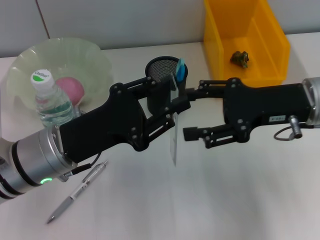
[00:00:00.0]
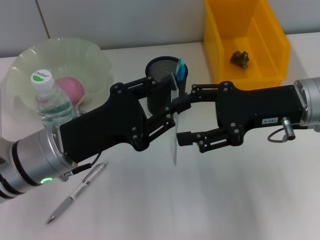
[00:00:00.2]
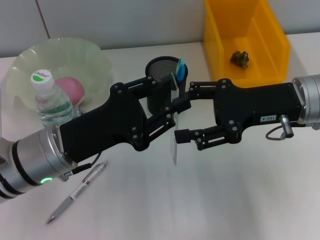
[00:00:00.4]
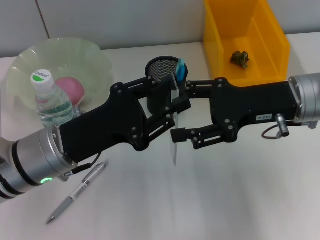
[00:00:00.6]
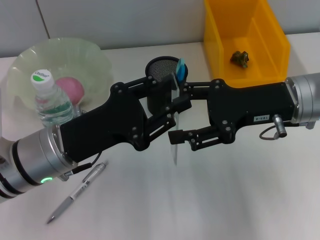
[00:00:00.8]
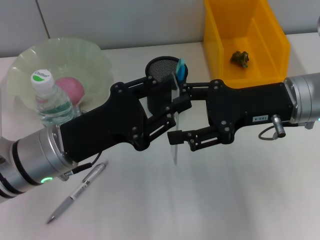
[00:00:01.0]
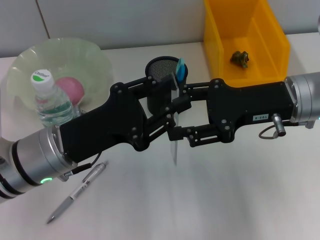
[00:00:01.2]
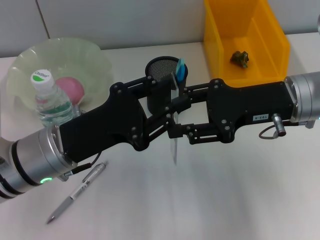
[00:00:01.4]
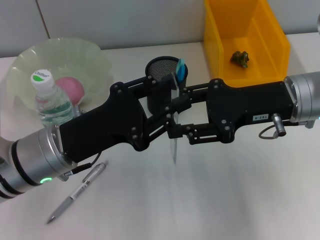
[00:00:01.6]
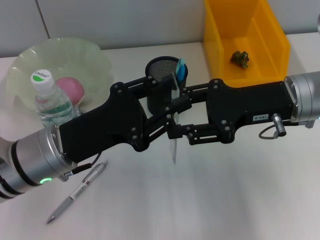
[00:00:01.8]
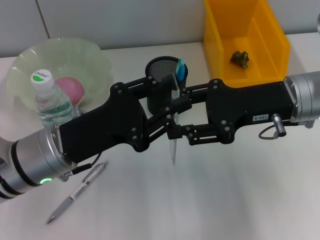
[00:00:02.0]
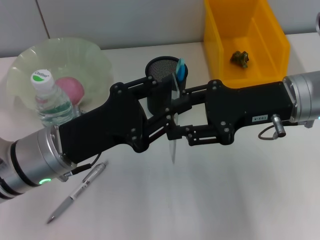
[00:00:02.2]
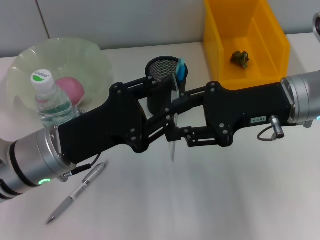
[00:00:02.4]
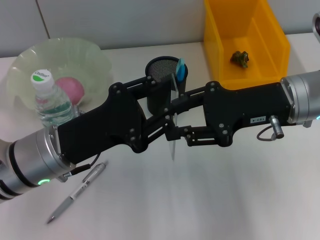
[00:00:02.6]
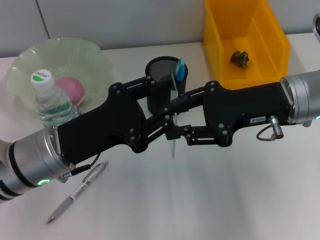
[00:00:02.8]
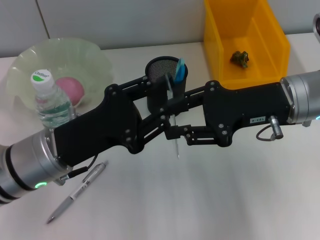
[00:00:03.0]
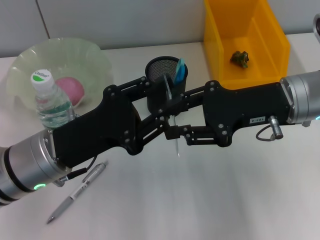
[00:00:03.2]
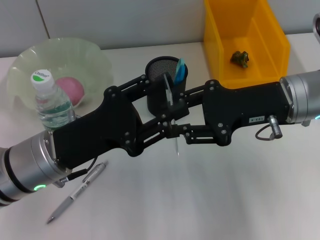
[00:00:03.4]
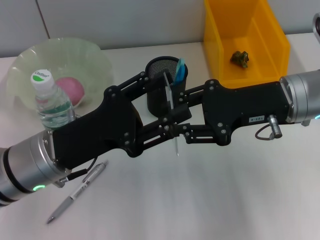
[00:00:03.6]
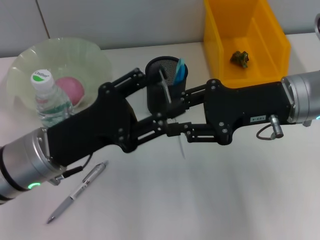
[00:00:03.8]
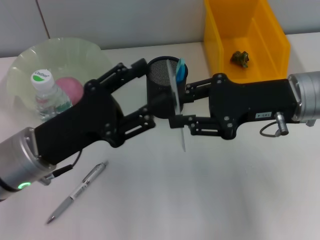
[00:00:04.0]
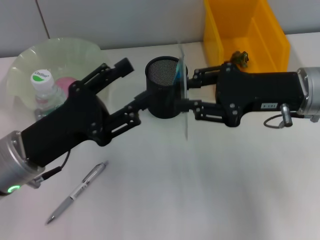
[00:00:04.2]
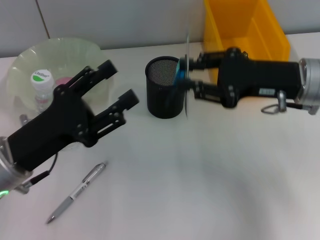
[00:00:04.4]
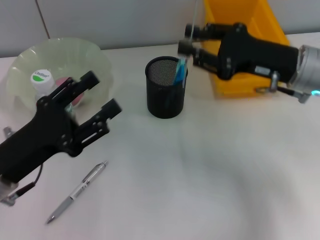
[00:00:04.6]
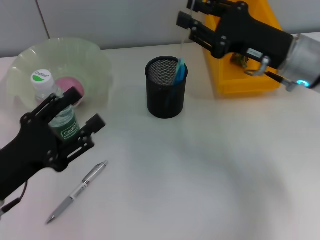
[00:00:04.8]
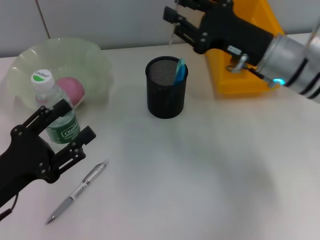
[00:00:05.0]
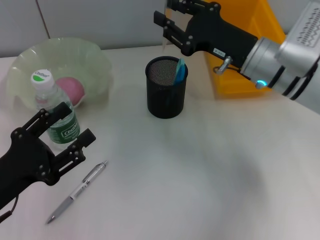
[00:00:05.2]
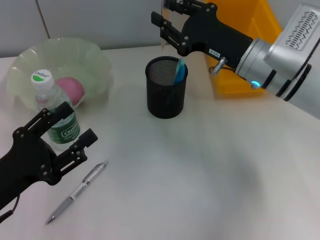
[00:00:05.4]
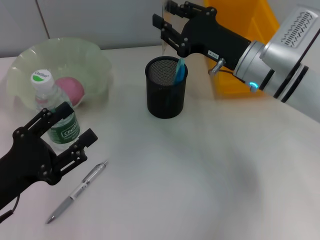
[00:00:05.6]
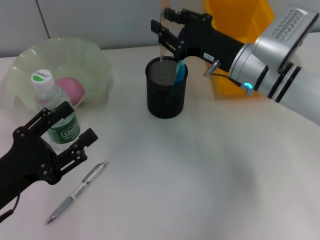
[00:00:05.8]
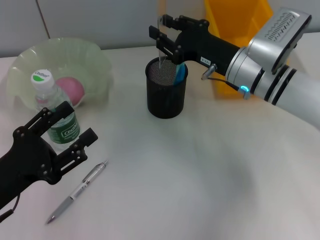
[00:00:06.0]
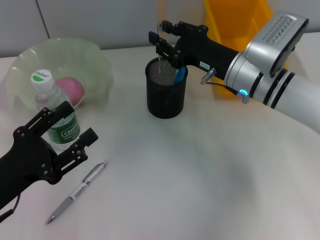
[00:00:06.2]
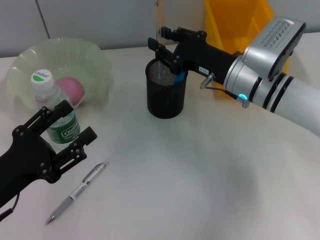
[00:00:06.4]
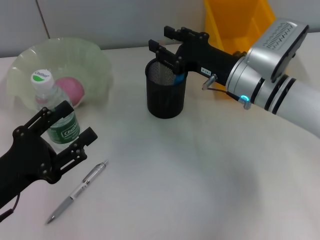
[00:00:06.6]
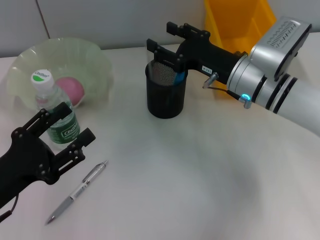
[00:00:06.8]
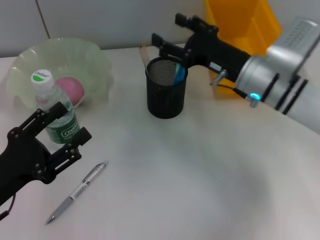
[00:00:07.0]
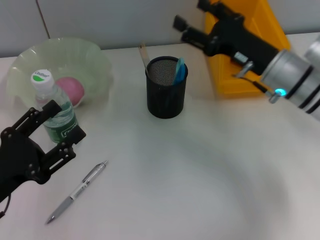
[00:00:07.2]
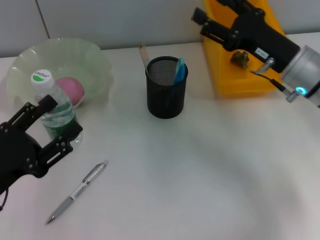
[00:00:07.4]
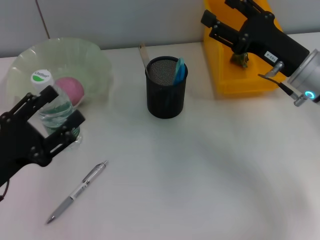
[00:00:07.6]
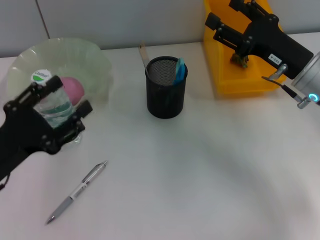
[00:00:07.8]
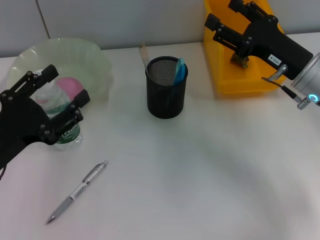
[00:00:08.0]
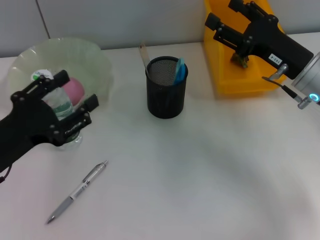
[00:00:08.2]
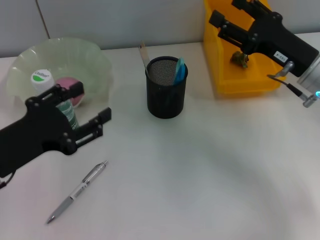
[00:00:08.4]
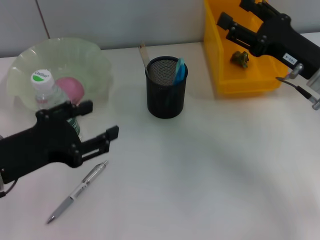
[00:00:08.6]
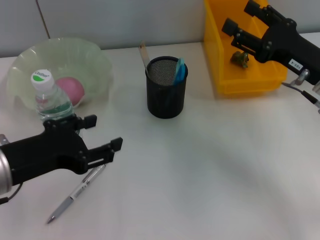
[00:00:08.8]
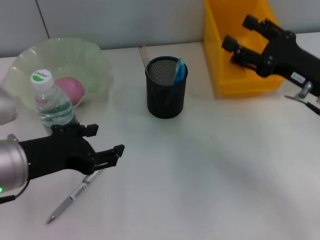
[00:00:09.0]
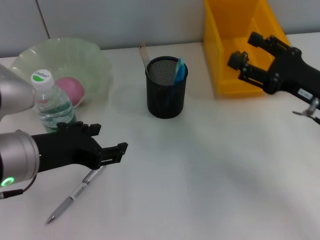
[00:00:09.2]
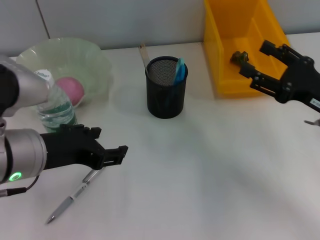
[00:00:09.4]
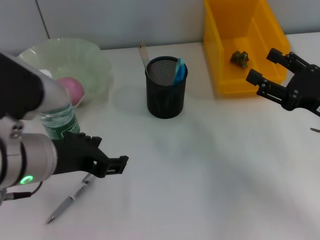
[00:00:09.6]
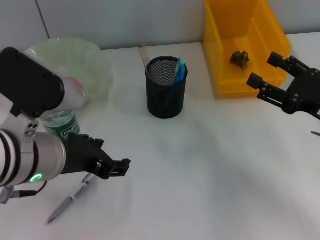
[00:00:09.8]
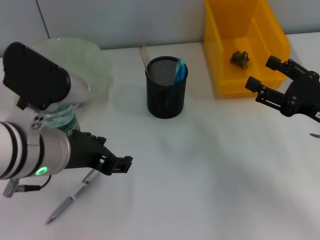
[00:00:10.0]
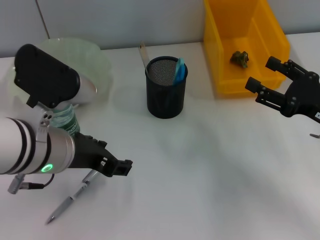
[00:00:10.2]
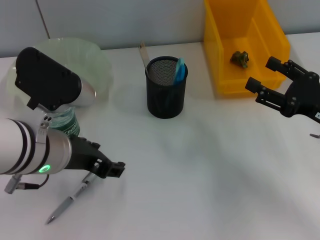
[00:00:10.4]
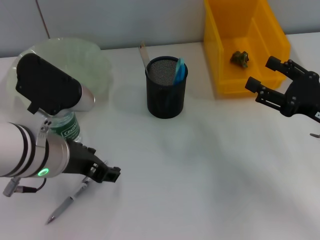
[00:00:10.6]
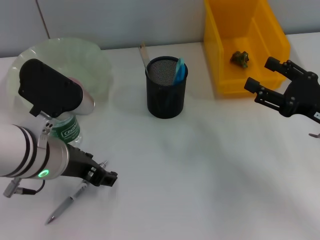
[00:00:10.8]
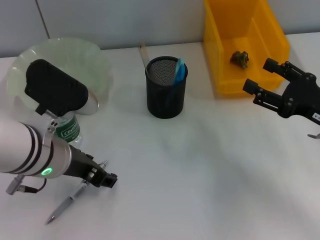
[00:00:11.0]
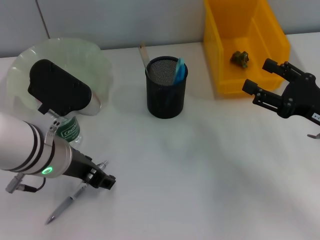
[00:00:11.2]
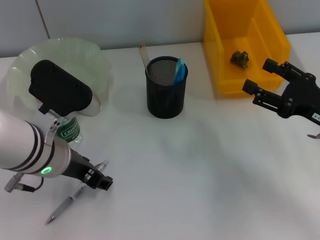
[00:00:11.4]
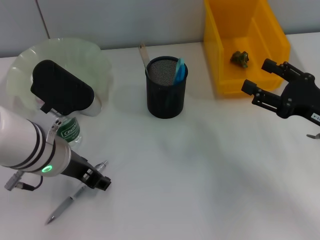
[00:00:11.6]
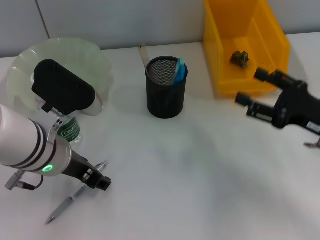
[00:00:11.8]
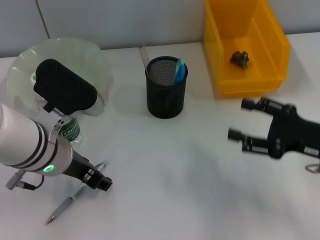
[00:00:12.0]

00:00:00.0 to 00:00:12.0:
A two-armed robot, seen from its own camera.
Step, 00:00:00.0 to 00:00:03.8: Pass the ruler from the left hand to the right hand.
Step, 00:00:04.0 to 00:00:06.8: Place the ruler into the pen holder with the right hand.
00:00:00.0 to 00:00:01.6: There are only small adjustments of the grippers.
00:00:01.6 to 00:00:03.0: Neither gripper changes place.
00:00:03.0 to 00:00:04.4: The left gripper opens its fingers.
00:00:04.4 to 00:00:06.0: The right gripper shifts about 10 cm to the left, forward and downward; the left gripper moves roughly 5 cm.
00:00:06.0 to 00:00:07.6: The right gripper heads to the right, covering some 10 cm, and opens up.
00:00:07.6 to 00:00:09.0: The left gripper goes some 10 cm upward and to the right.
00:00:09.0 to 00:00:10.4: The left gripper heads to the right, covering about 5 cm, while the right gripper shifts by some 5 cm.
00:00:10.4 to 00:00:12.0: The grippers move only a little.

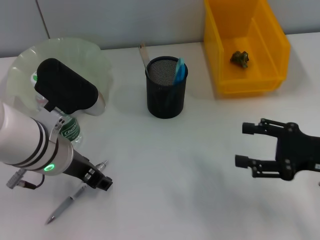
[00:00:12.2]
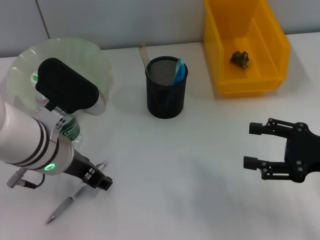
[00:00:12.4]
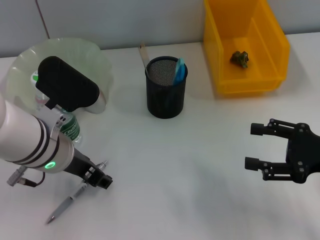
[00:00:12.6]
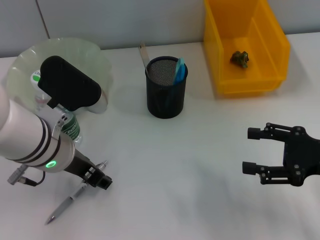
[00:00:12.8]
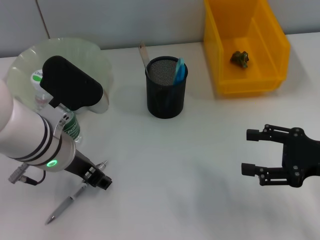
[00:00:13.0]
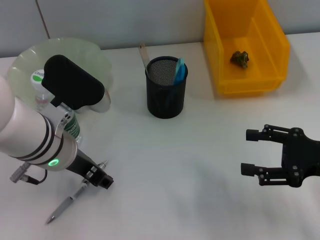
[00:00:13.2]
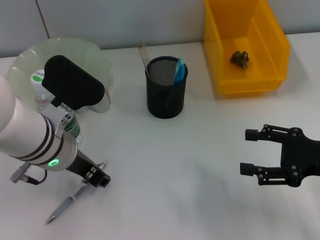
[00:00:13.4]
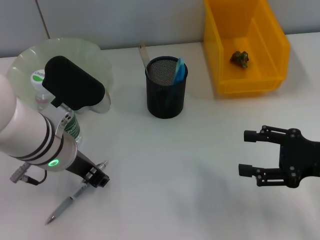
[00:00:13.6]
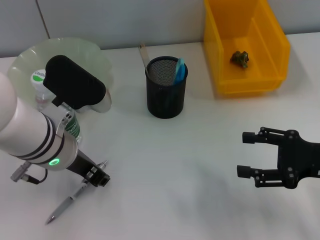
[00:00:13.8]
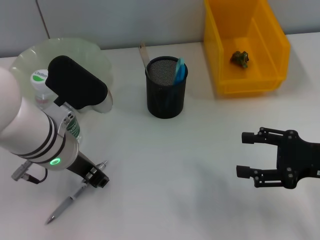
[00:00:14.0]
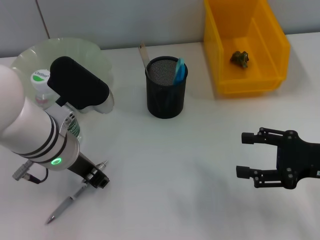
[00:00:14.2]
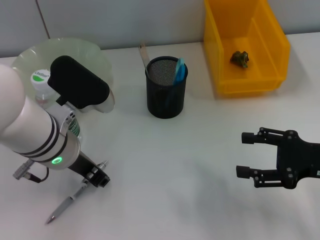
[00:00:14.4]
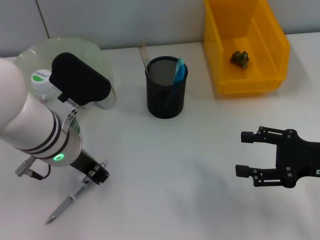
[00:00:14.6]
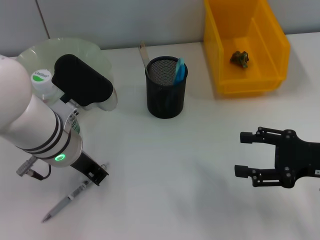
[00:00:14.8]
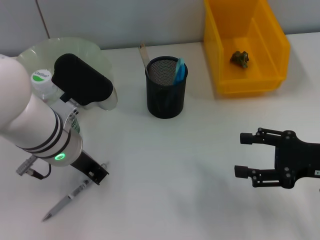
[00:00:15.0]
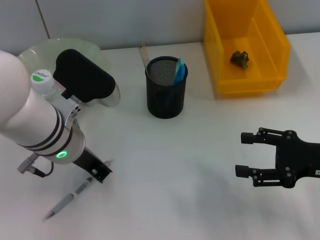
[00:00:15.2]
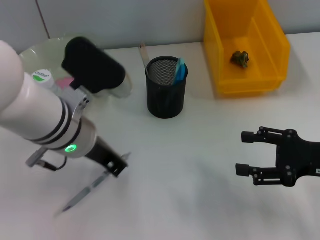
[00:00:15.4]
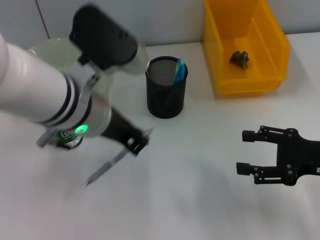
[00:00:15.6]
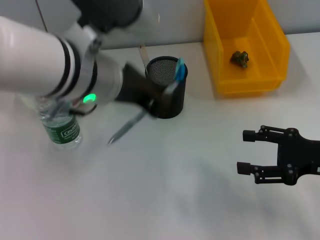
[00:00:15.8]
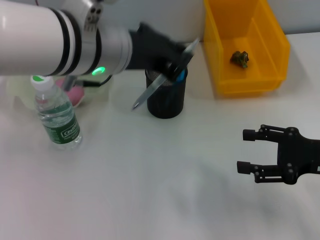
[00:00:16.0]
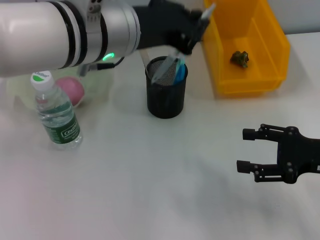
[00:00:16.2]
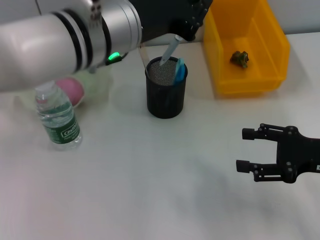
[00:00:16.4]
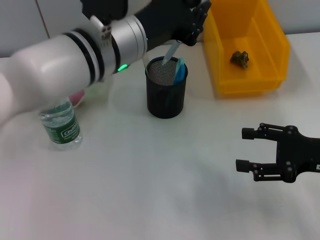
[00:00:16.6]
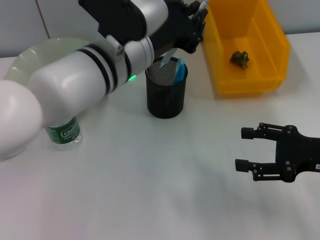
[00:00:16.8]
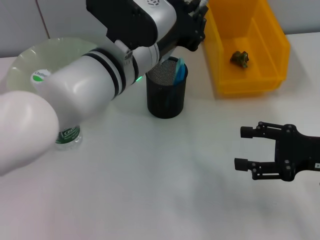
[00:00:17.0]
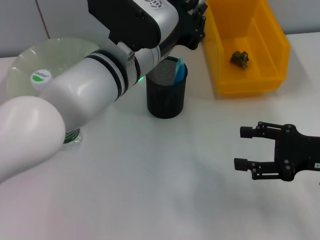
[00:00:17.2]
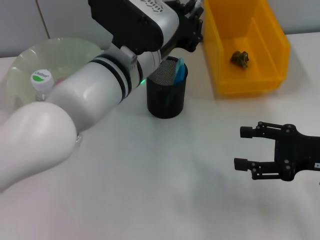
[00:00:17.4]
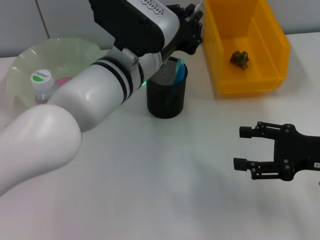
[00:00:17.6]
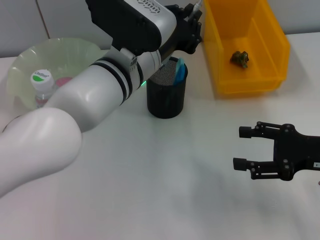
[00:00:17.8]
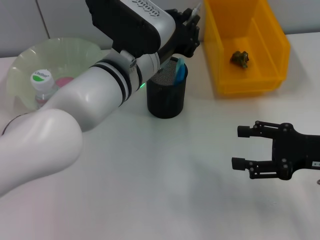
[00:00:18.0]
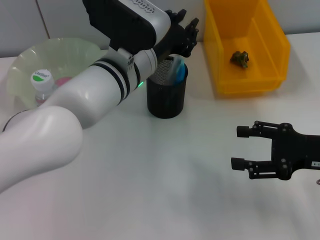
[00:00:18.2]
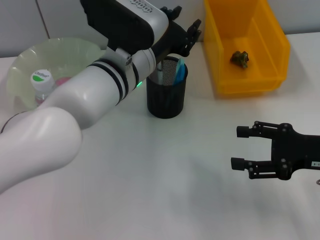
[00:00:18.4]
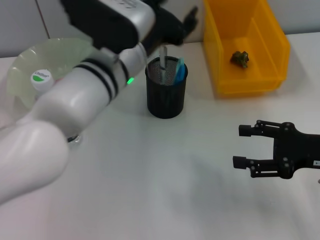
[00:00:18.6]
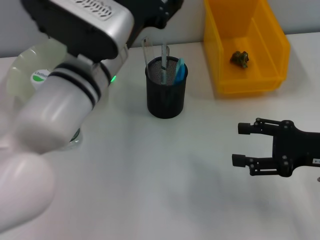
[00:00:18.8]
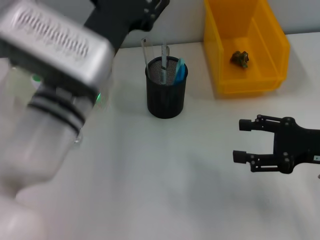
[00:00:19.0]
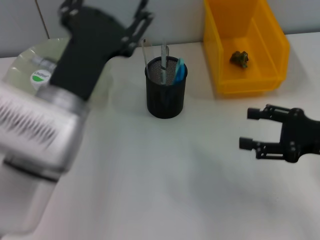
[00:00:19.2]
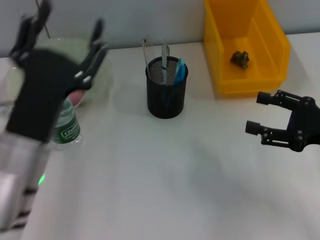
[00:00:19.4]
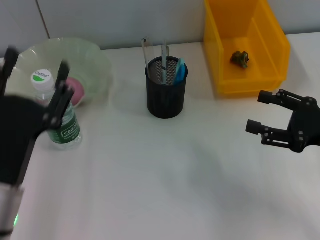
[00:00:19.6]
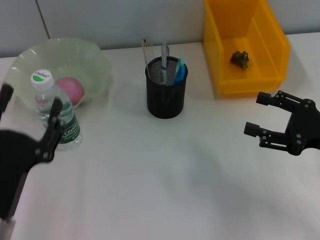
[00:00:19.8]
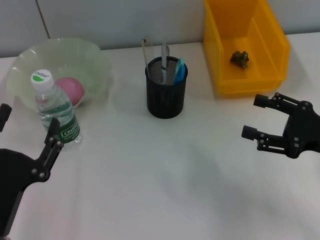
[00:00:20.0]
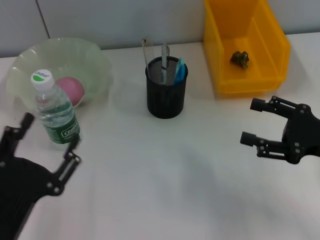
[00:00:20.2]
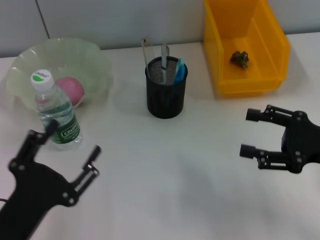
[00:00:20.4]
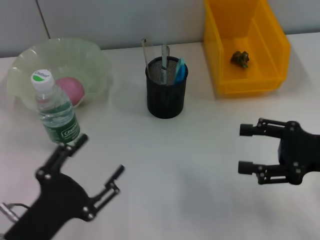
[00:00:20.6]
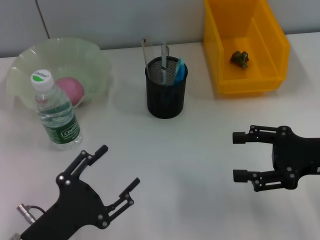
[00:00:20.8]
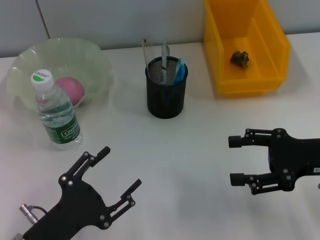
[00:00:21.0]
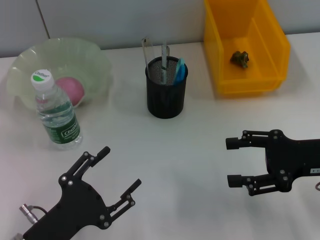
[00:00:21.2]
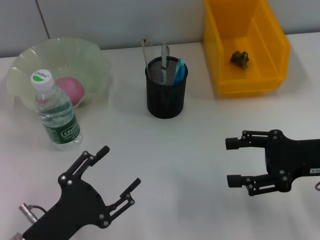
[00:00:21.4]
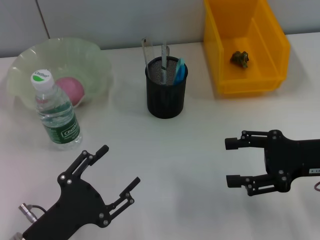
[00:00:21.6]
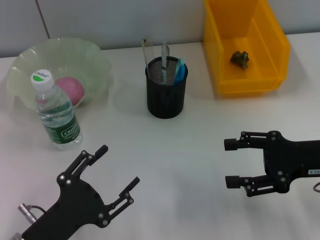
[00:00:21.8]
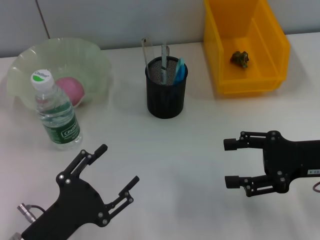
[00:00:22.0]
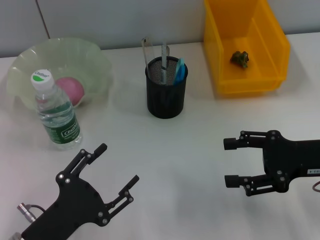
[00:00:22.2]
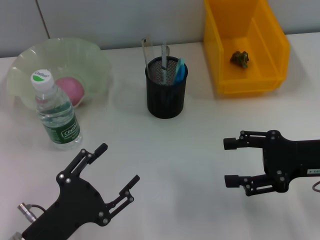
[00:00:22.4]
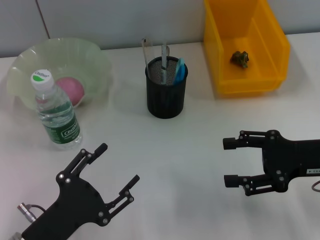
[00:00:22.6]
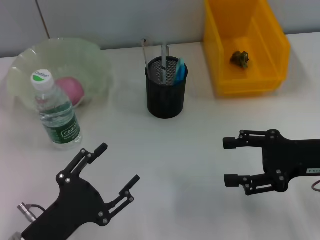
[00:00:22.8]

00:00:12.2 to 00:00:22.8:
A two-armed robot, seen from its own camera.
Step, 00:00:12.2 to 00:00:14.8: Grab the gray spring-action pen with the left hand.
Step, 00:00:15.0 to 00:00:18.6: Place the gray spring-action pen into the pen holder with the left hand.
00:00:12.2 to 00:00:13.8: Both grippers stay about where they are.
00:00:13.8 to 00:00:15.2: The left gripper closes up.
00:00:15.2 to 00:00:16.8: The left gripper goes roughly 5 cm to the right.
00:00:16.8 to 00:00:18.2: The grippers move only a little.
00:00:18.2 to 00:00:19.8: The left gripper shifts approximately 25 cm backward, to the left and downward, and opens its fingers.
00:00:21.2 to 00:00:22.8: The two grippers keep their place.
